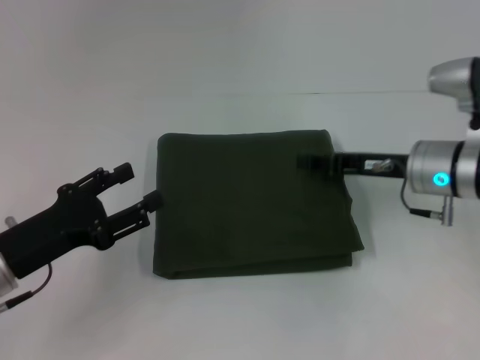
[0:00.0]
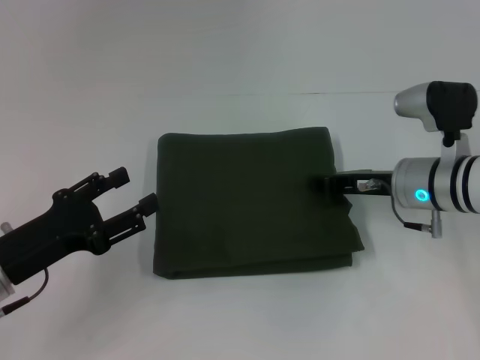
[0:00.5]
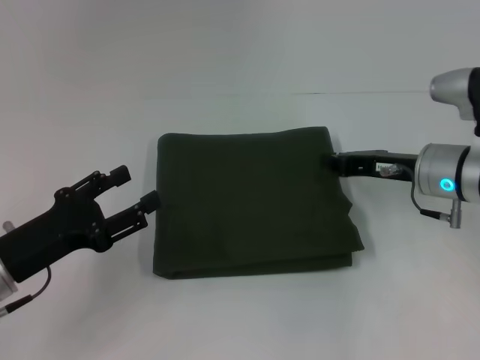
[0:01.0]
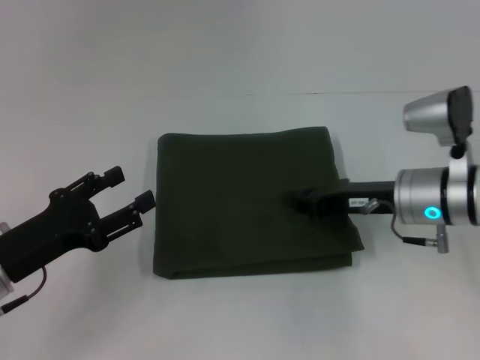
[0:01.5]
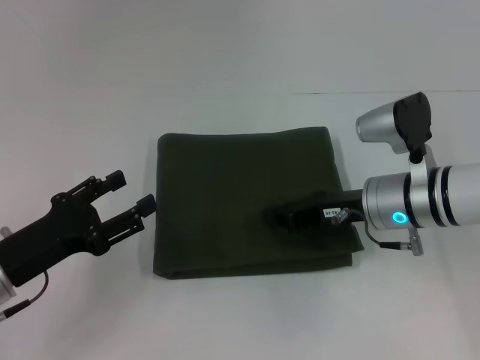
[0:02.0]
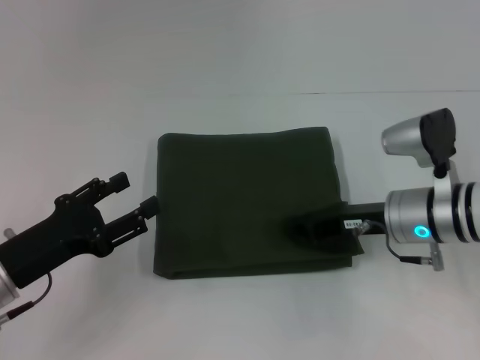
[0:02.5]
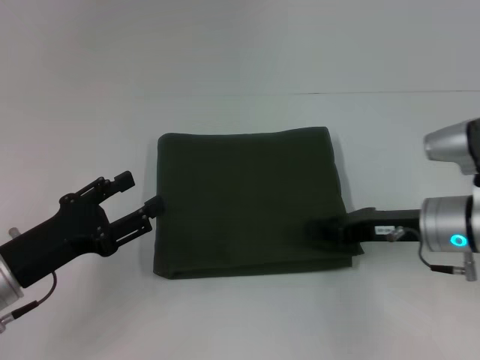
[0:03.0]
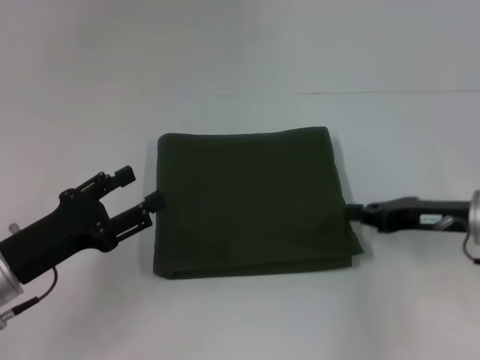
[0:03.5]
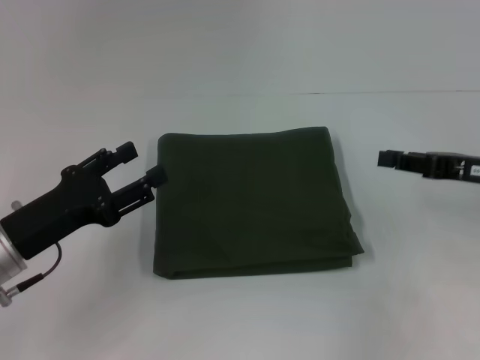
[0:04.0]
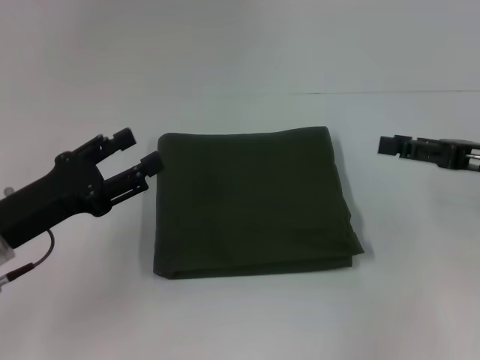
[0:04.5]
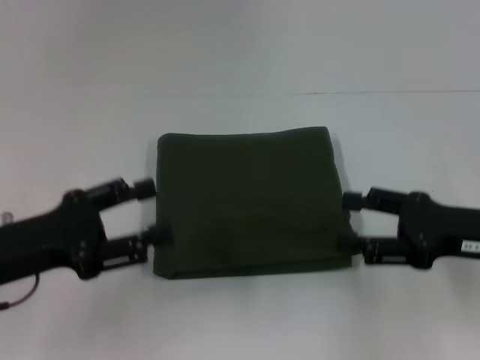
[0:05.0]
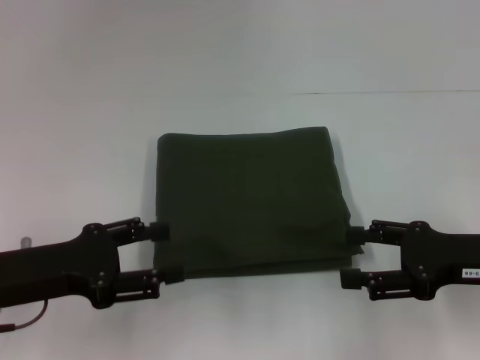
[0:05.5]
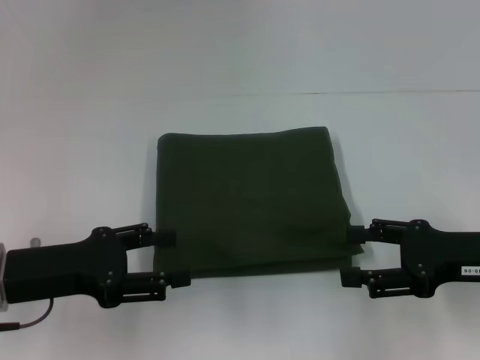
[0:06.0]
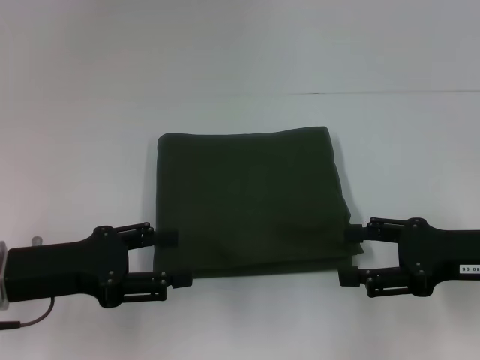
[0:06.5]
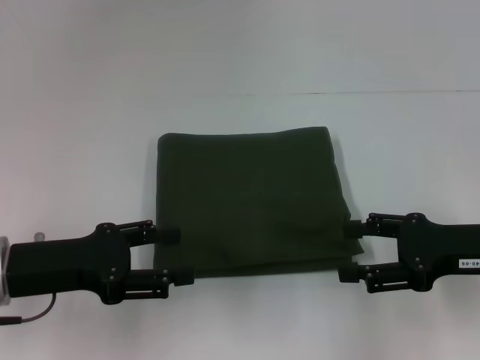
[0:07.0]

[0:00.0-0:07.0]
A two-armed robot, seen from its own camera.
0:00.0 to 0:02.0: The right gripper changes place by roughly 5 cm, and closes.
0:02.0 to 0:03.5: The right gripper heads to the right, covering about 10 cm.
0:03.5 to 0:05.0: The right gripper travels backward by about 5 cm, and opens up. The left gripper shifts approximately 5 cm upward.
0:05.0 to 0:07.0: The grippers move only a little.

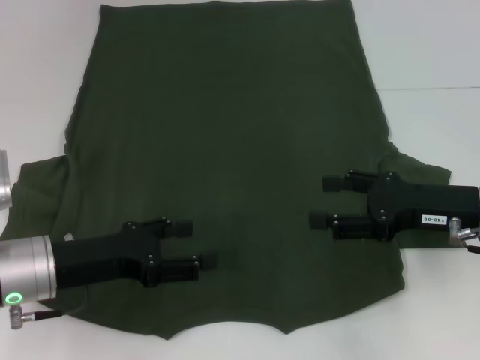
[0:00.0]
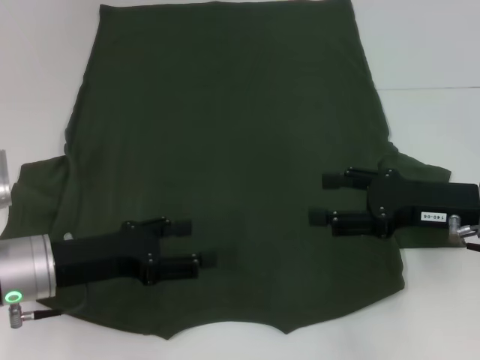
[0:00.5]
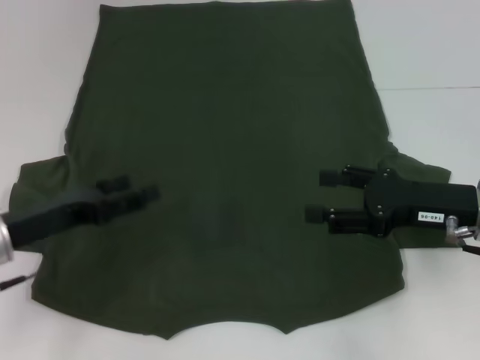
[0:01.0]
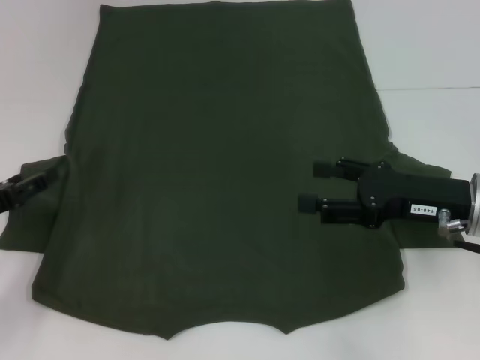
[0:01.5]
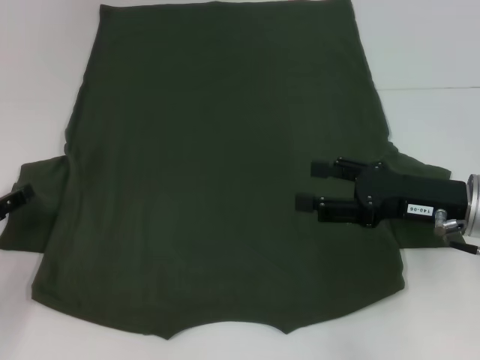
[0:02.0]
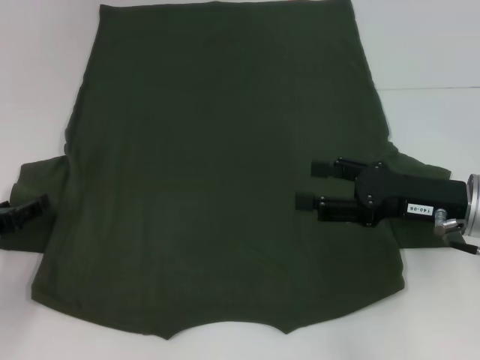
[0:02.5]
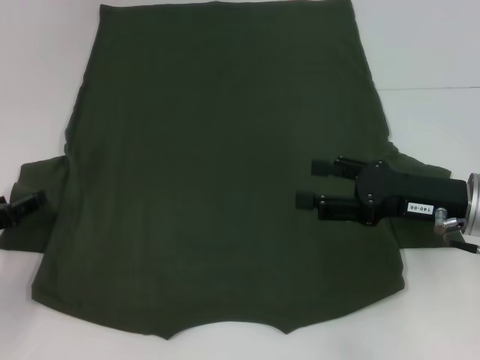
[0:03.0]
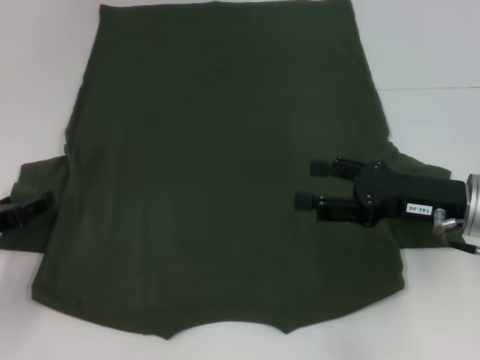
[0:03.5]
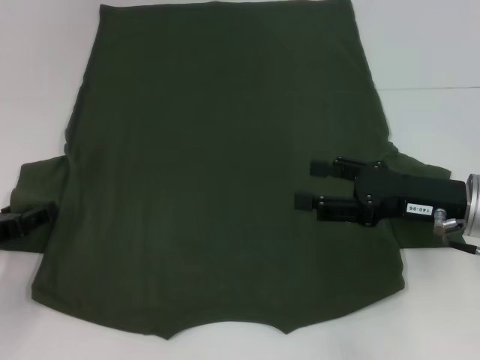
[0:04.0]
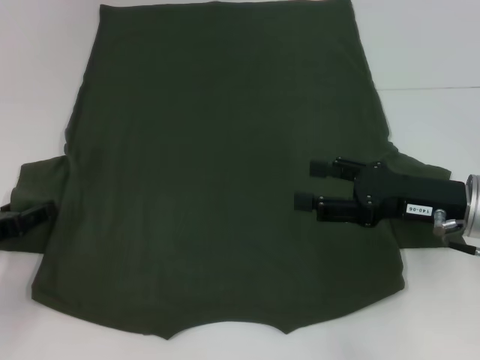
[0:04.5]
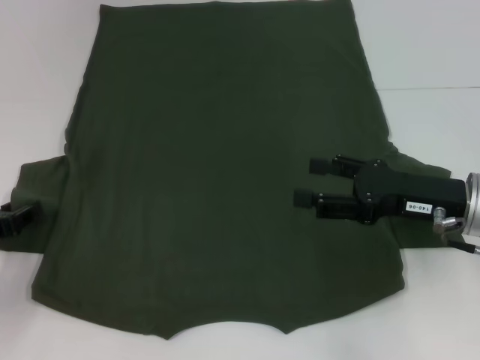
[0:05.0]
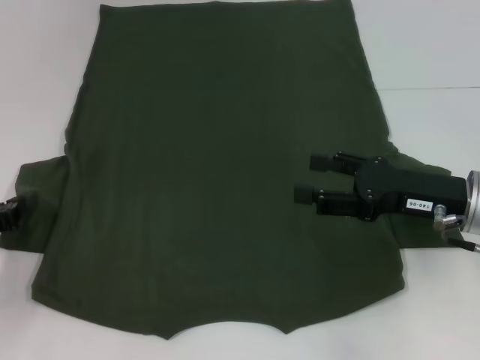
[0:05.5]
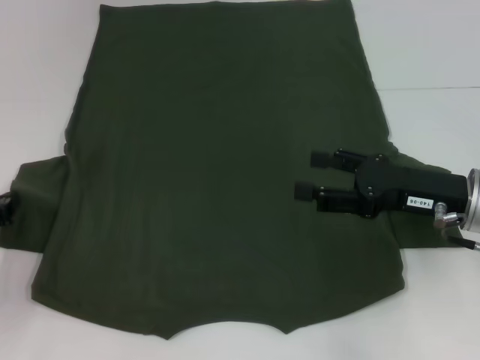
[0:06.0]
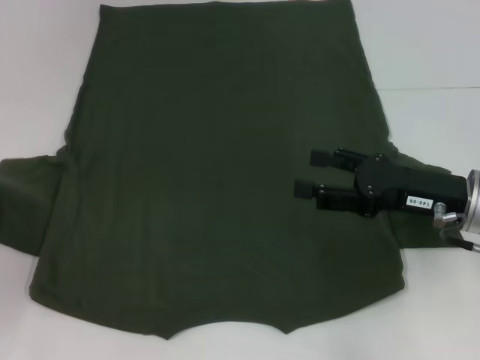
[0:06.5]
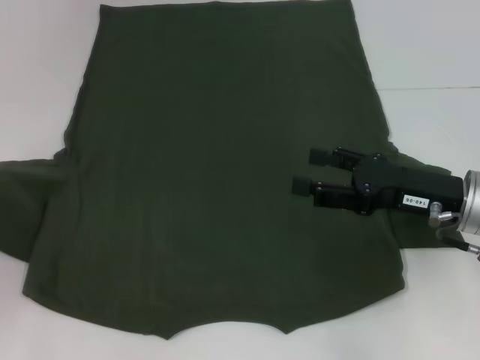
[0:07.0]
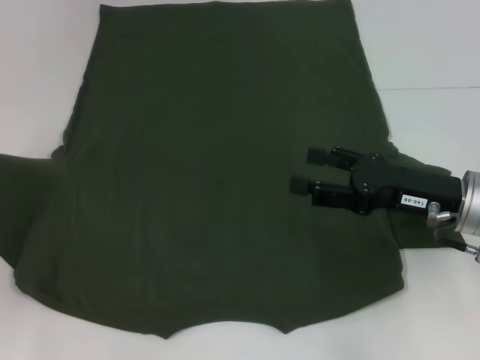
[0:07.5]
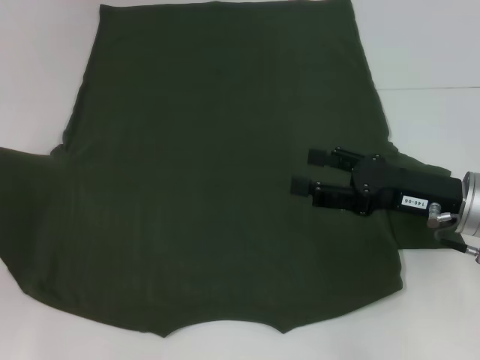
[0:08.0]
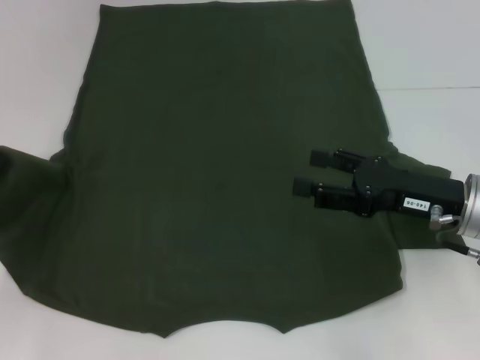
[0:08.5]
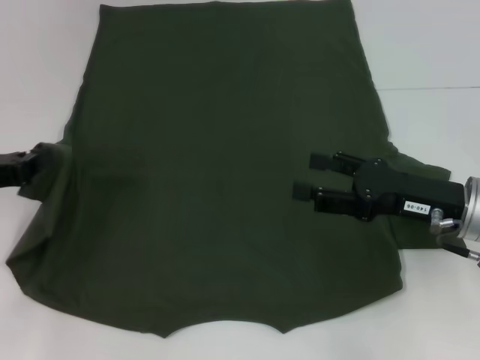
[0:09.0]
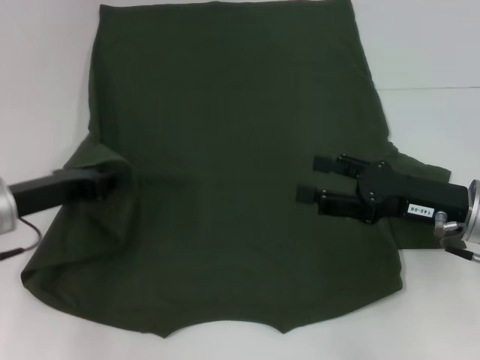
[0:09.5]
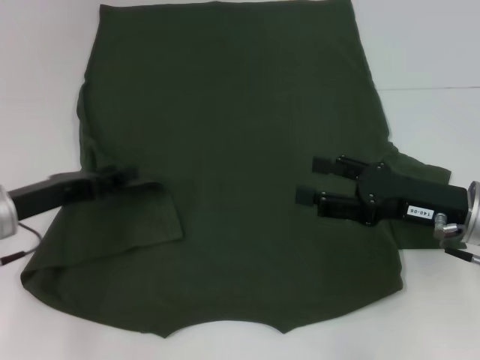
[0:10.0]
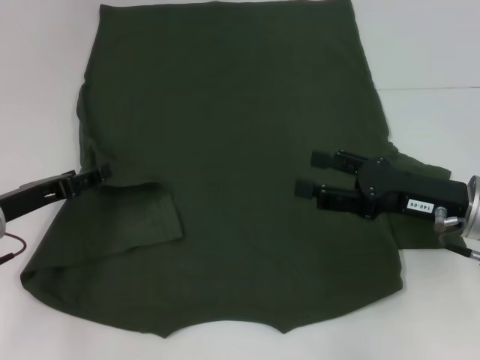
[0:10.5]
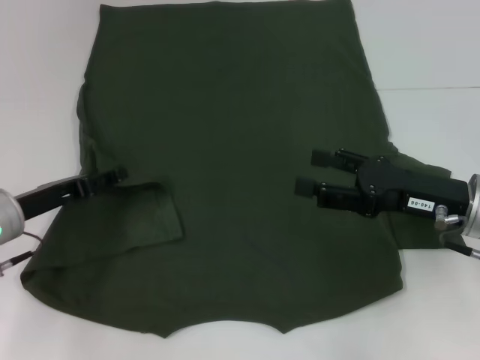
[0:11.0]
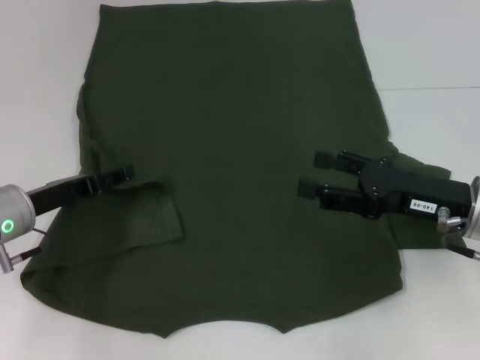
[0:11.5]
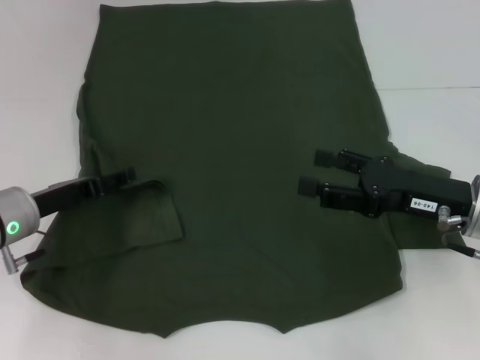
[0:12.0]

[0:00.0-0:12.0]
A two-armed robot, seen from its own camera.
0:00.0 to 0:02.0: The left gripper travels to the left by some 10 cm.
0:04.0 to 0:06.0: The left gripper closes up.
0:06.0 to 0:08.0: The left gripper changes place by approximately 5 cm.
0:08.0 to 0:10.0: The left gripper heads to the right, covering about 10 cm.
0:10.0 to 0:12.0: The left gripper opens.

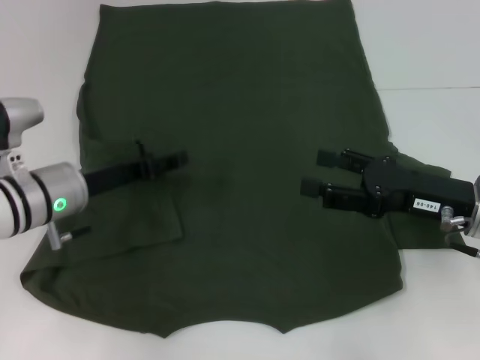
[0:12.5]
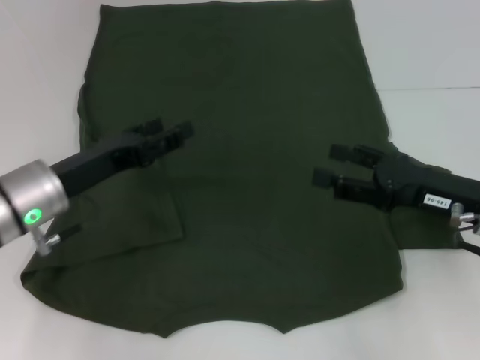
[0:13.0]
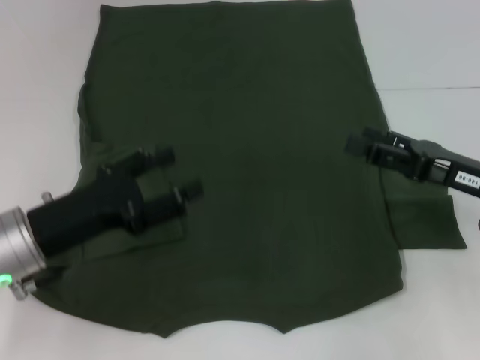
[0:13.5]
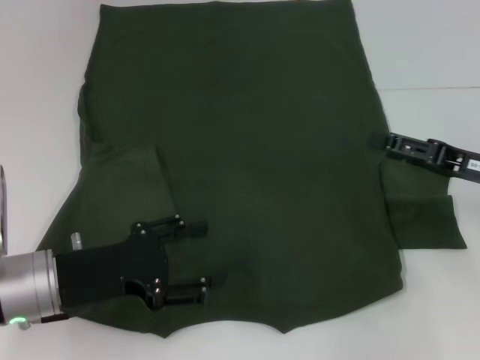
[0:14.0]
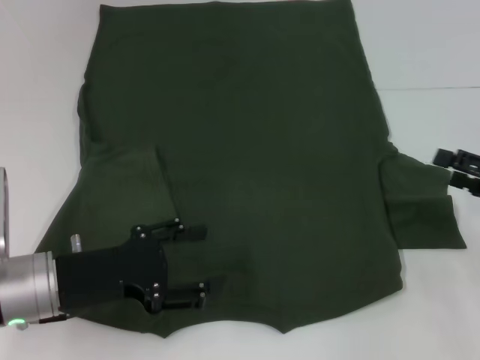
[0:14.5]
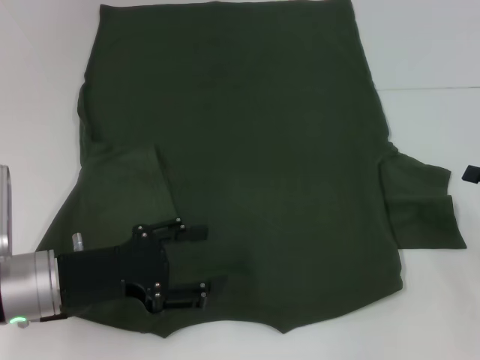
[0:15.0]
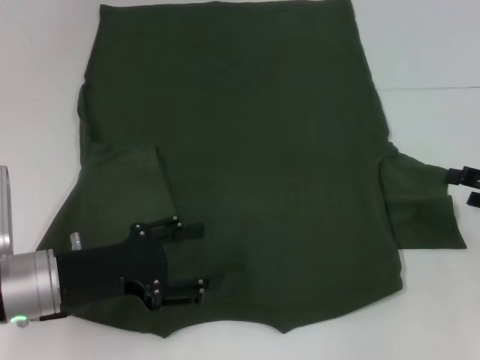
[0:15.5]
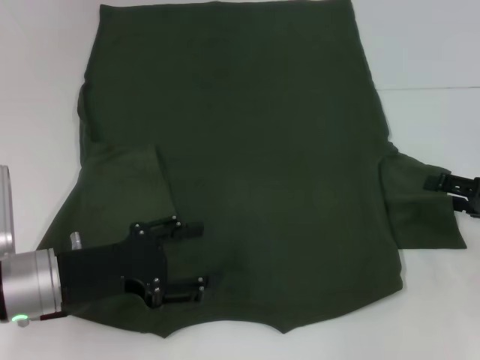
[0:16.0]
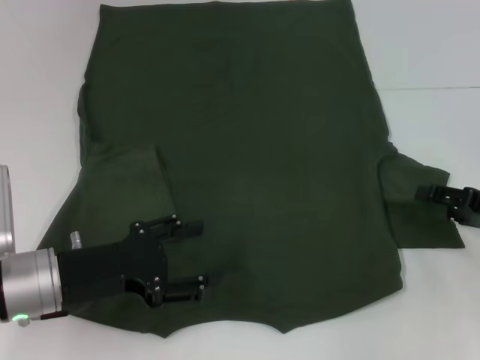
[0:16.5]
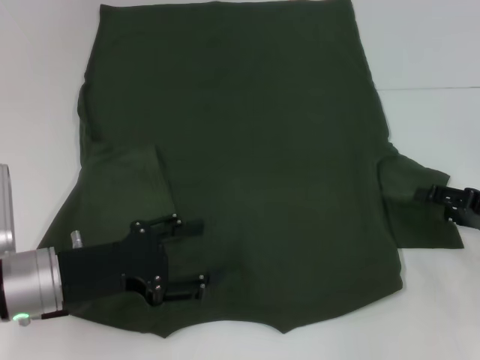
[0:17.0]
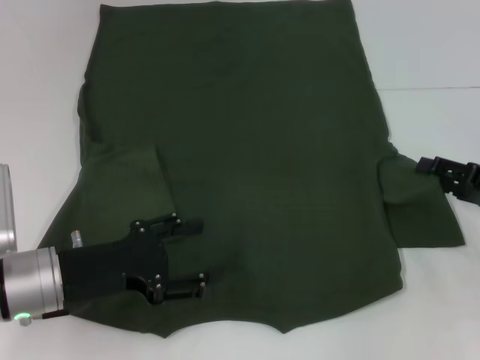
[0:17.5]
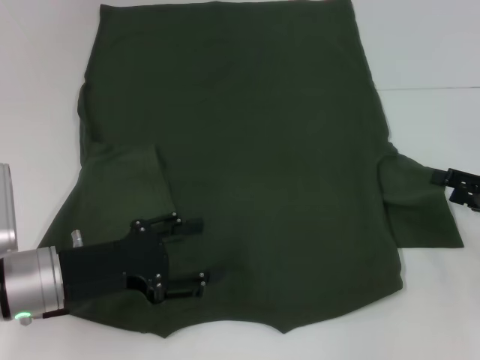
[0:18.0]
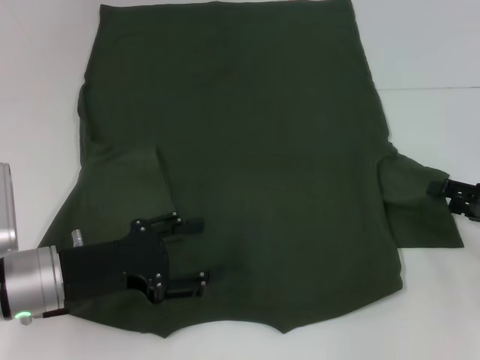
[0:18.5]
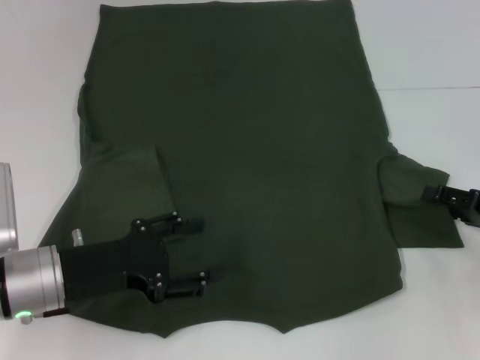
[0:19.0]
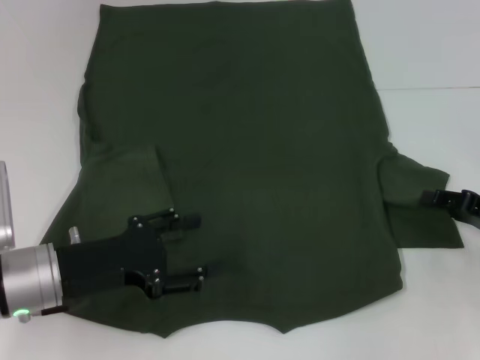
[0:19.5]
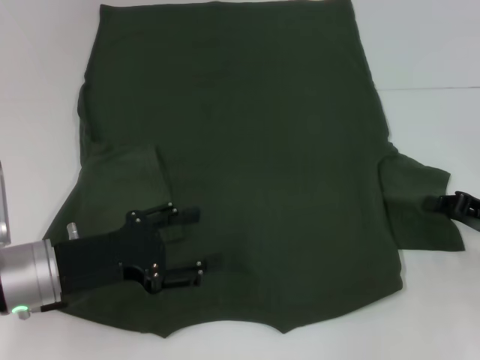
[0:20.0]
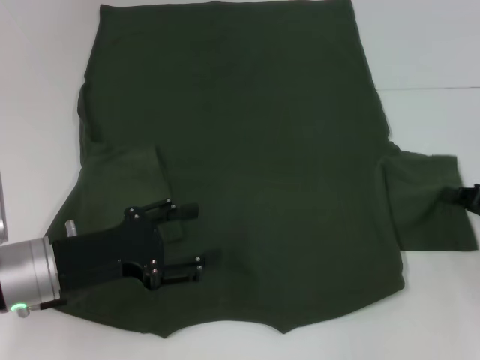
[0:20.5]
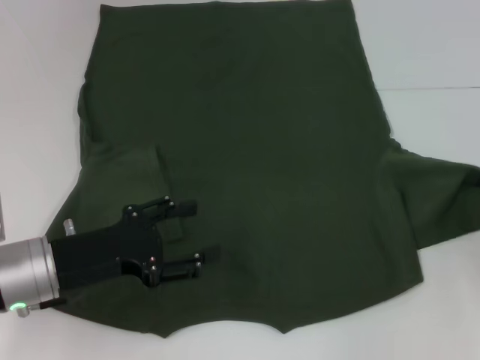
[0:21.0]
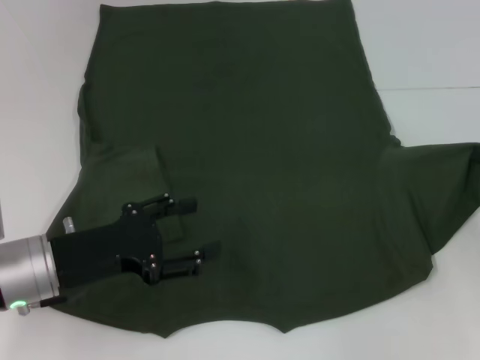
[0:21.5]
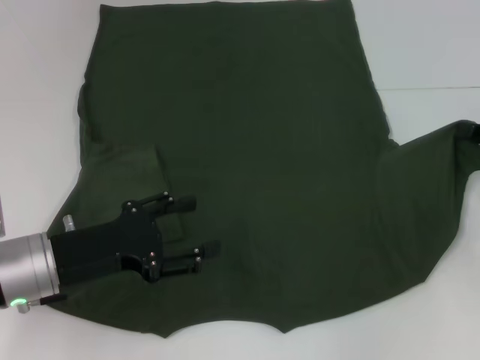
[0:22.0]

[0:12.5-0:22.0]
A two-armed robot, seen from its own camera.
0:12.5 to 0:14.5: The right gripper goes roughly 10 cm to the right, while the left gripper goes approximately 10 cm backward.
0:14.5 to 0:18.0: There are only small adjustments of the grippers.
0:18.0 to 0:20.0: The right gripper closes.
0:20.0 to 0:22.0: The right gripper shifts by some 5 cm.
